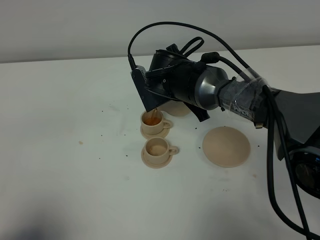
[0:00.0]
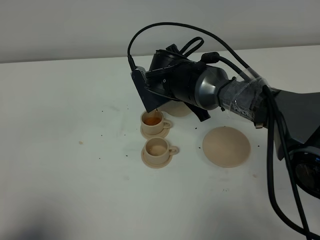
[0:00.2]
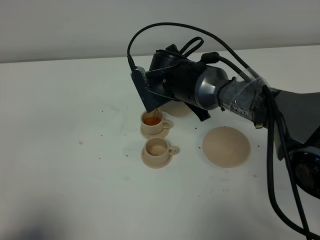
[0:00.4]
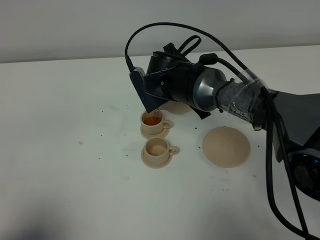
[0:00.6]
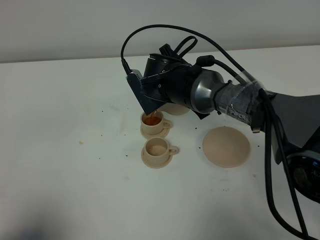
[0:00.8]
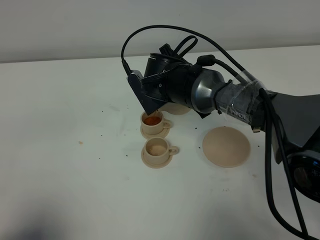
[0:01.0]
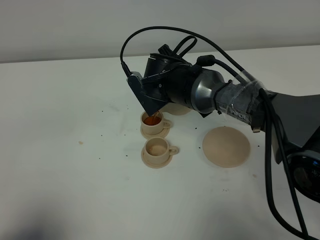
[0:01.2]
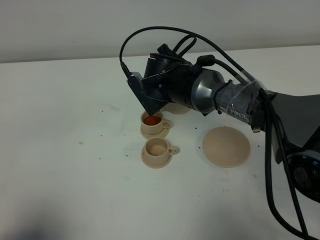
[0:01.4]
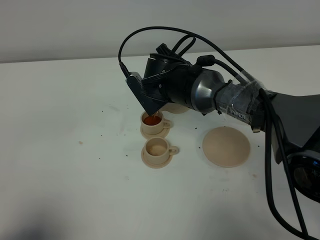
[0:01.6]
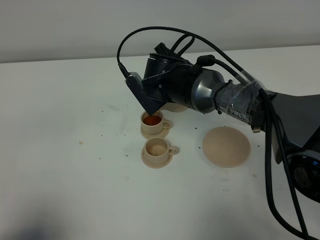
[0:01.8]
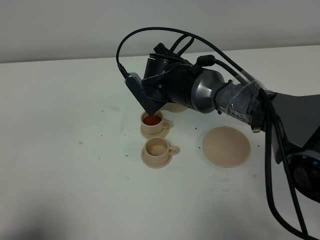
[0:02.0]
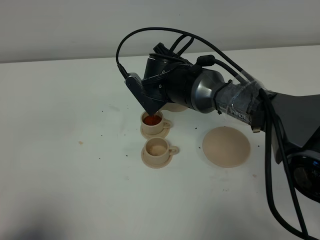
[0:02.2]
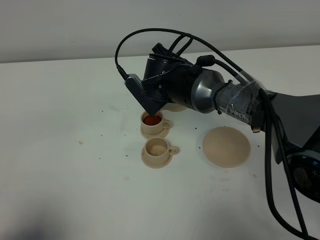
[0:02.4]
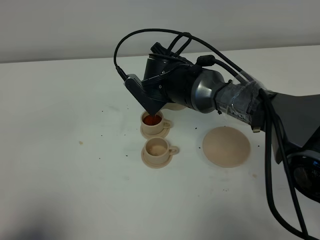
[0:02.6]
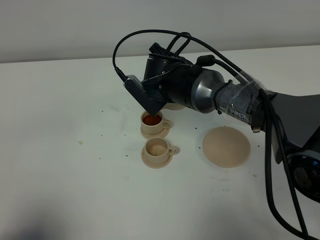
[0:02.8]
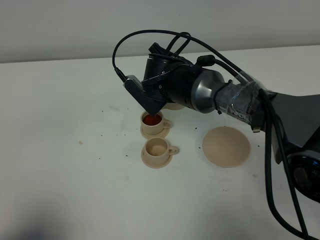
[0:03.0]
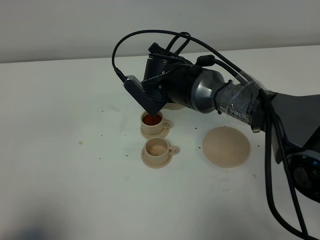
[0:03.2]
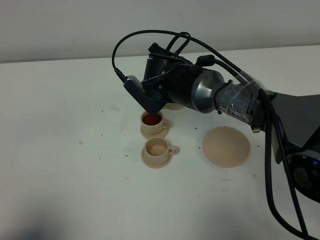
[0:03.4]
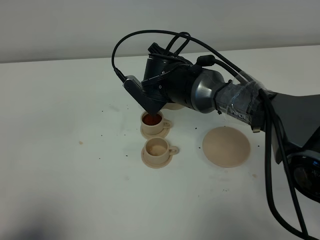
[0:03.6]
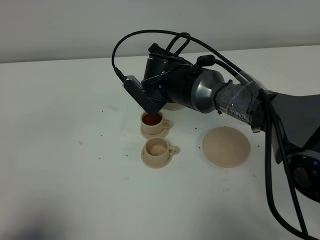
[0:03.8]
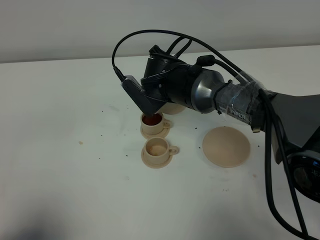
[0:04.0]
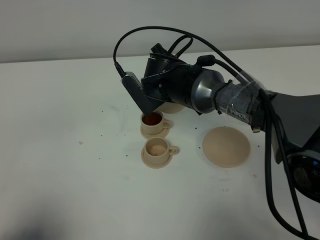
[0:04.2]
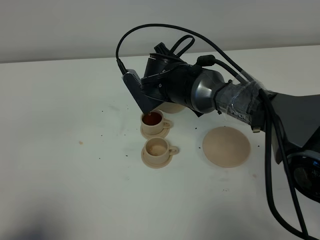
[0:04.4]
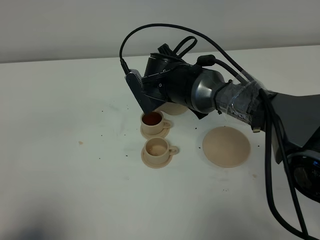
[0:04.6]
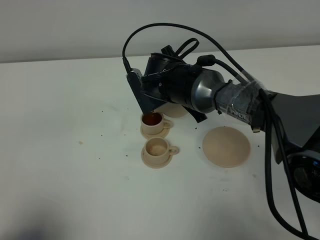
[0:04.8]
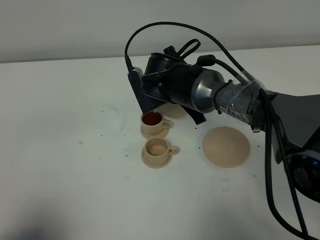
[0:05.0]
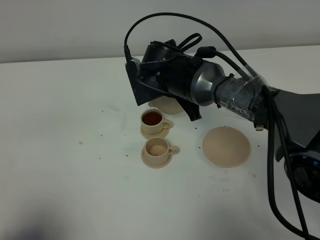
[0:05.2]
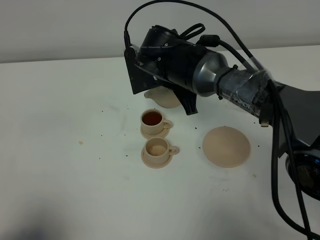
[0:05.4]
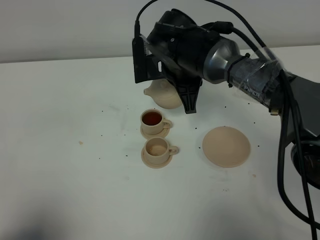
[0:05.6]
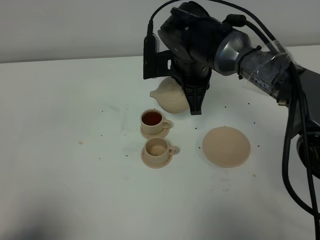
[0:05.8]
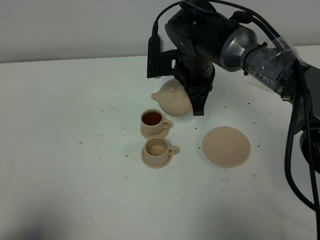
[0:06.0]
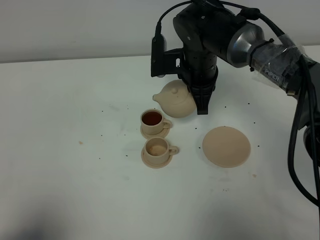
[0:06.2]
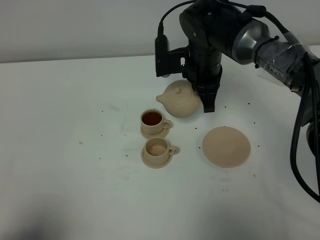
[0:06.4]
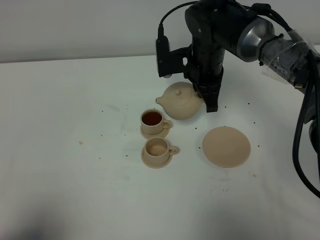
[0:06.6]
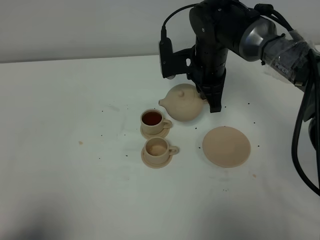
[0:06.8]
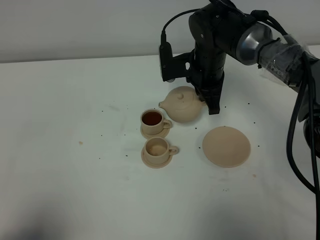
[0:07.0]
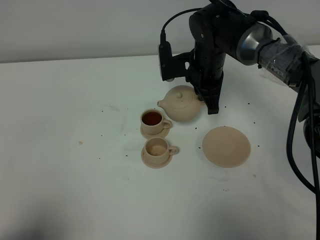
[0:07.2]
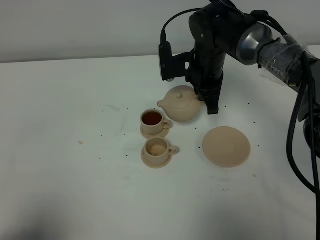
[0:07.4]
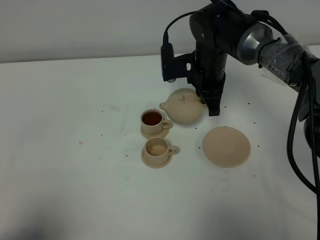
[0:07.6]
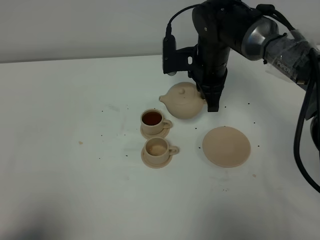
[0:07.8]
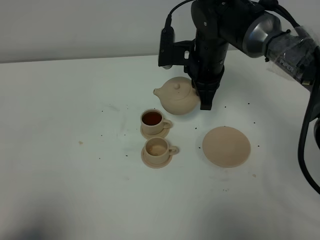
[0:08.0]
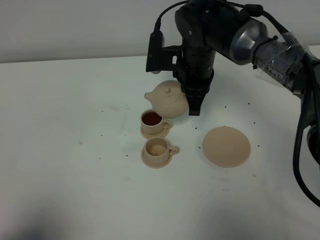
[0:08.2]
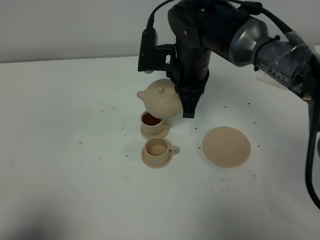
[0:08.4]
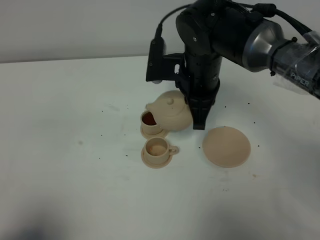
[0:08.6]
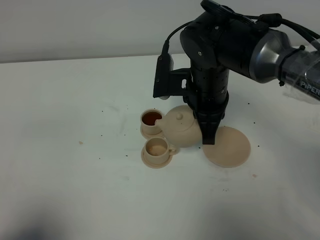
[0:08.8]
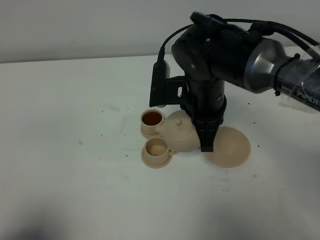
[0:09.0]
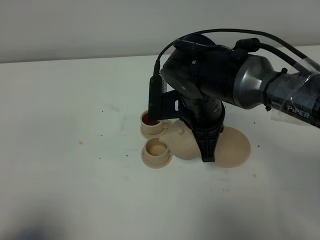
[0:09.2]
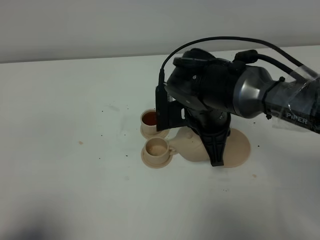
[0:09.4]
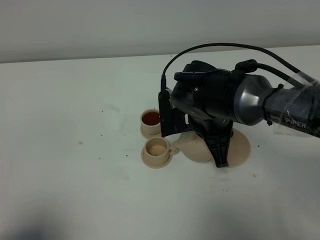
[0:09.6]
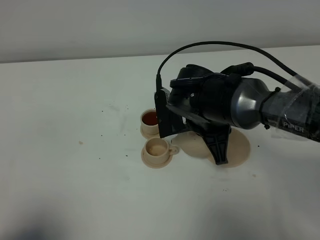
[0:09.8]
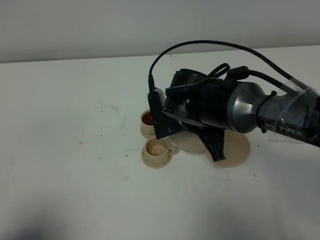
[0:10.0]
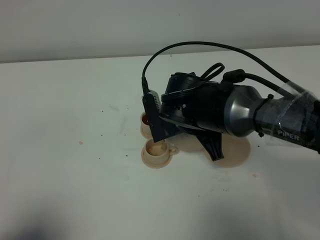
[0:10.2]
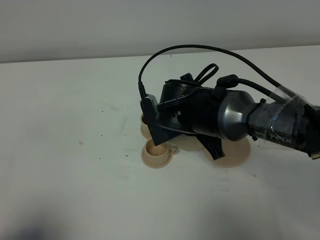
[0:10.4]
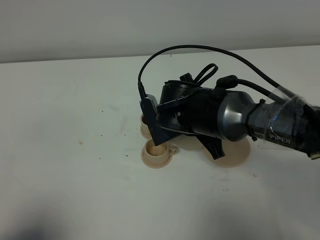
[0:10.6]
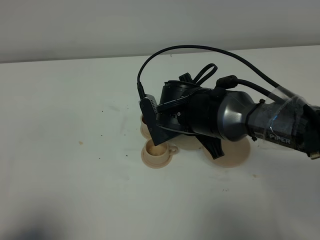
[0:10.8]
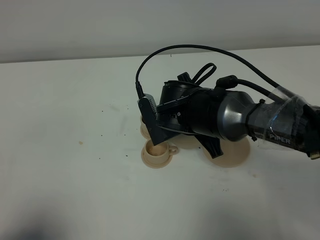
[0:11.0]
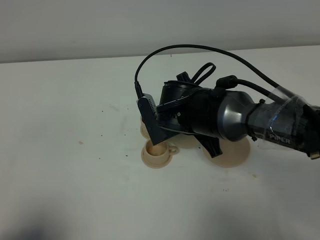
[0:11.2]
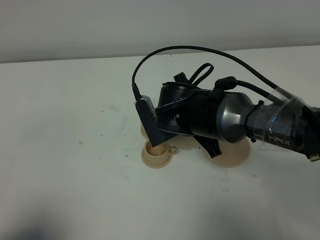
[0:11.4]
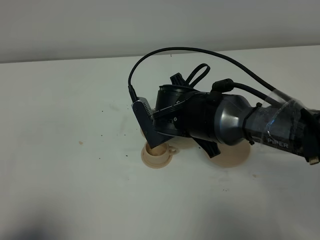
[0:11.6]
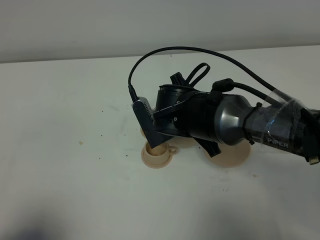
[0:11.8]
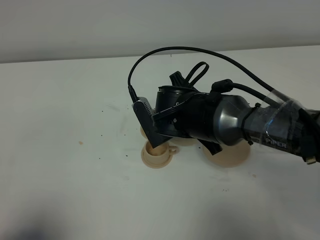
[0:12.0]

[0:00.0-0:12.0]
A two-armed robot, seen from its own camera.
Task of the whole recording: grasp the brown teapot and pour the tea into the two brown teacups one by one, put the brown teapot back in its original place.
Step, 0:00.0 to 0:05.4: Pour tea into the teacup with the right gripper.
0:00.0 to 0:01.6: There are only small adjustments of the grippers.
0:01.6 to 0:04.4: The grippers make only small movements.
0:04.4 to 0:06.0: The right gripper ends up roughly 5 cm from where it was.
0:06.0 to 0:07.6: The grippers make only small movements.
0:07.6 to 0:09.0: The right gripper is displaced backward by about 10 cm.
0:10.4 to 0:12.0: The grippers stay close to where they were, moving slightly.

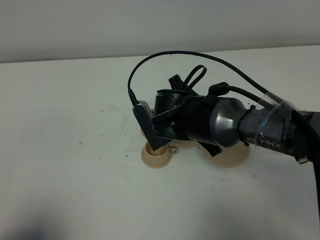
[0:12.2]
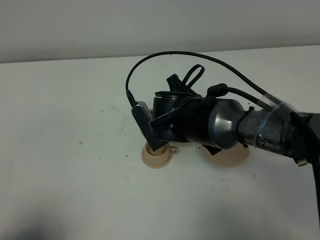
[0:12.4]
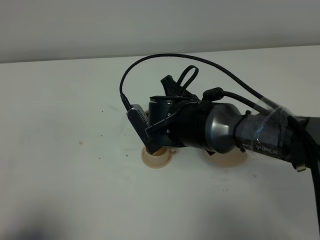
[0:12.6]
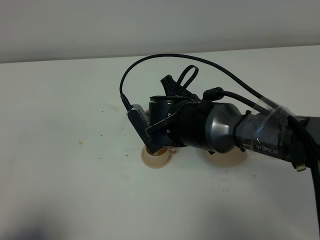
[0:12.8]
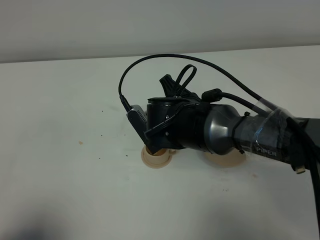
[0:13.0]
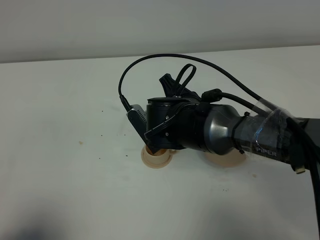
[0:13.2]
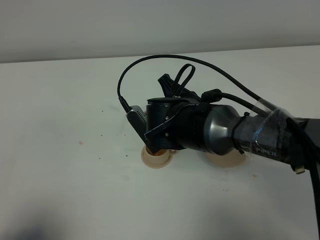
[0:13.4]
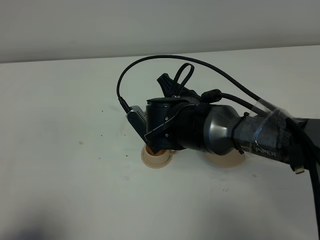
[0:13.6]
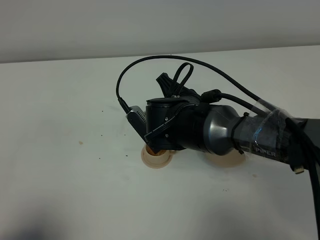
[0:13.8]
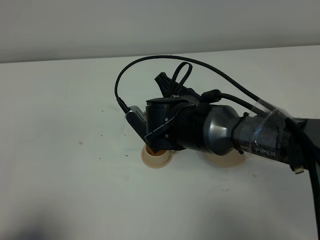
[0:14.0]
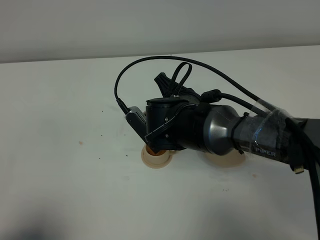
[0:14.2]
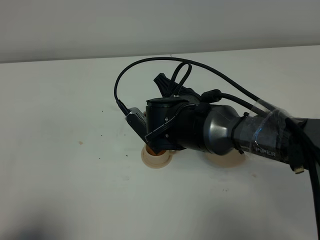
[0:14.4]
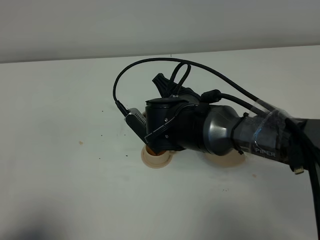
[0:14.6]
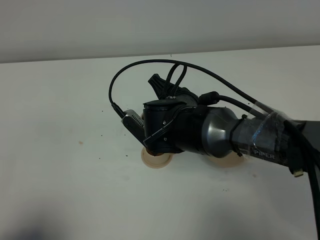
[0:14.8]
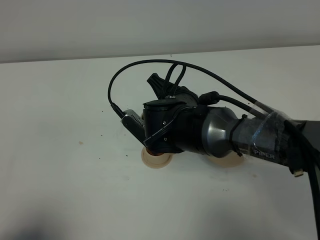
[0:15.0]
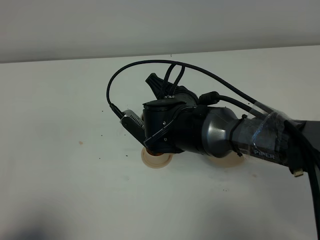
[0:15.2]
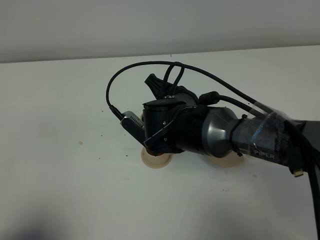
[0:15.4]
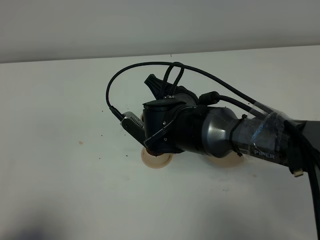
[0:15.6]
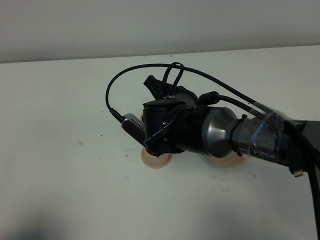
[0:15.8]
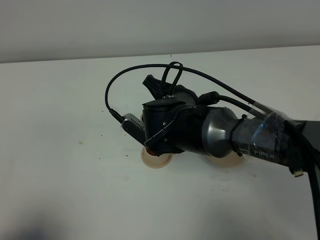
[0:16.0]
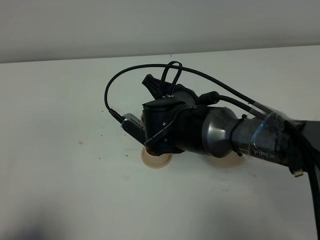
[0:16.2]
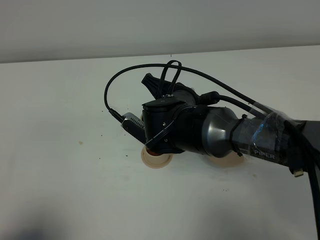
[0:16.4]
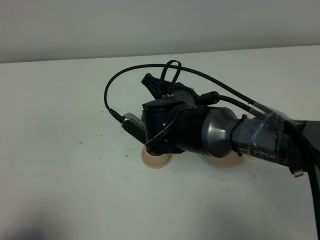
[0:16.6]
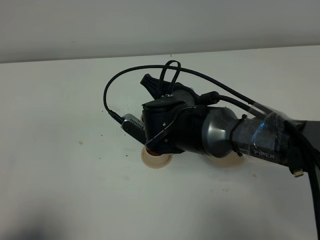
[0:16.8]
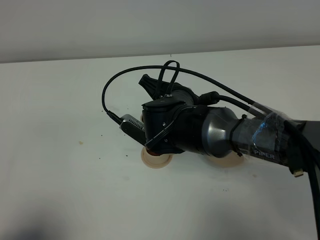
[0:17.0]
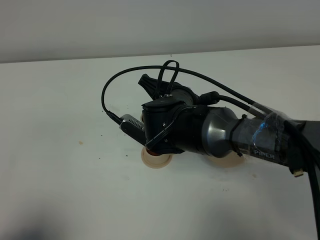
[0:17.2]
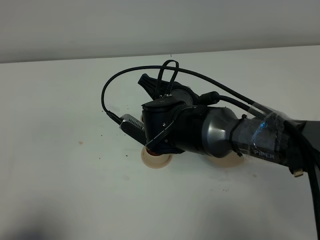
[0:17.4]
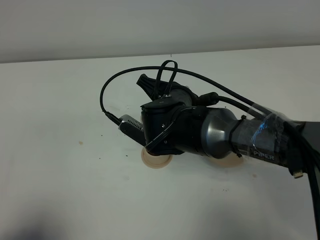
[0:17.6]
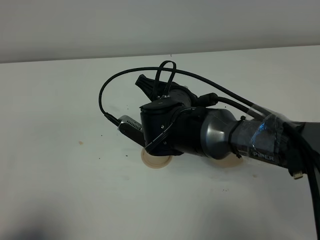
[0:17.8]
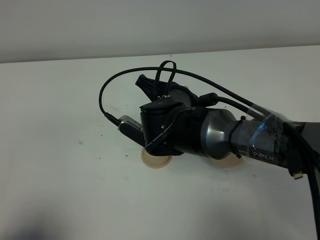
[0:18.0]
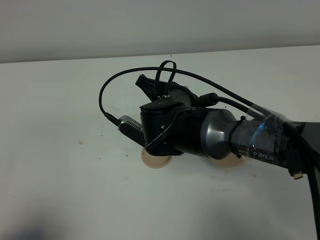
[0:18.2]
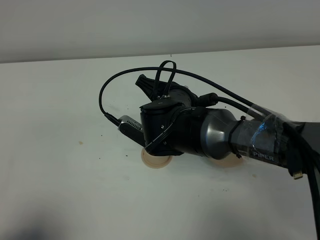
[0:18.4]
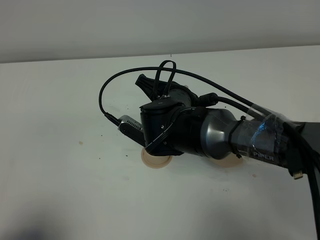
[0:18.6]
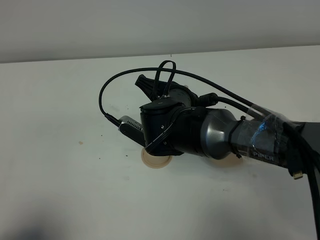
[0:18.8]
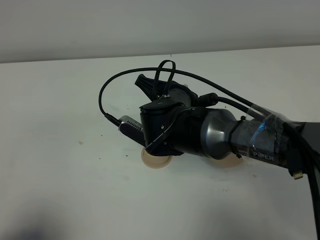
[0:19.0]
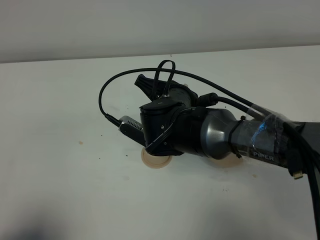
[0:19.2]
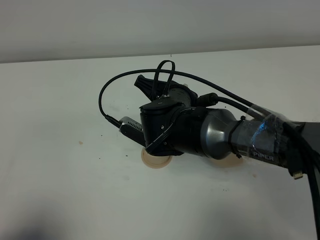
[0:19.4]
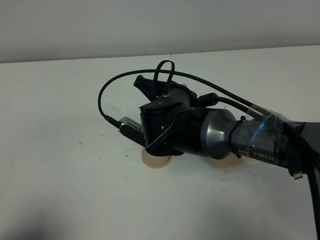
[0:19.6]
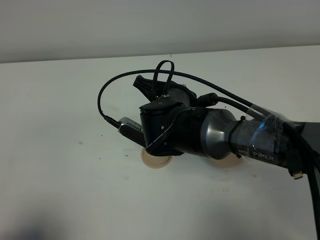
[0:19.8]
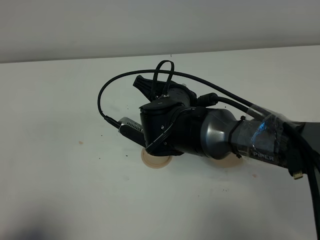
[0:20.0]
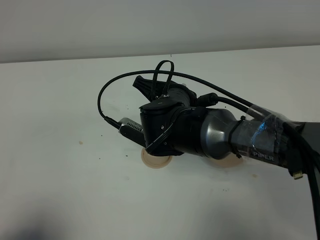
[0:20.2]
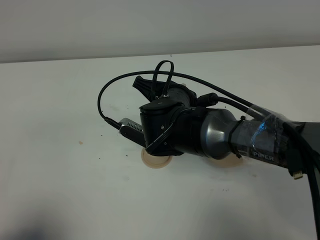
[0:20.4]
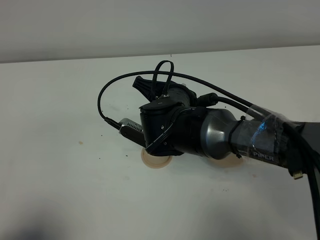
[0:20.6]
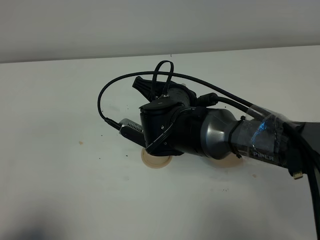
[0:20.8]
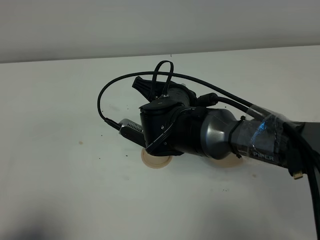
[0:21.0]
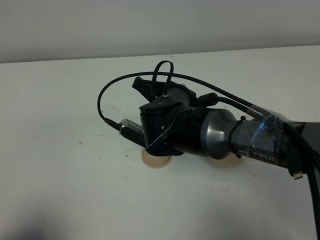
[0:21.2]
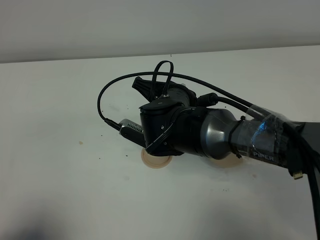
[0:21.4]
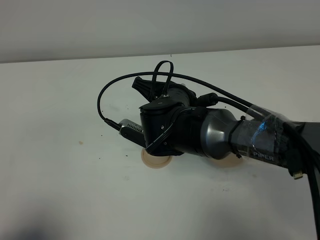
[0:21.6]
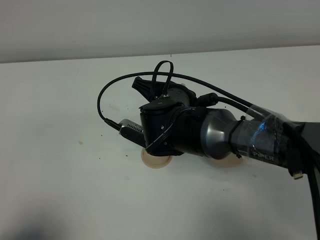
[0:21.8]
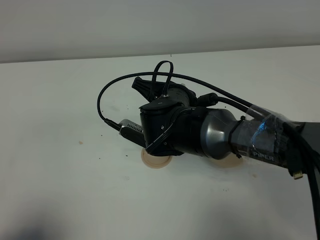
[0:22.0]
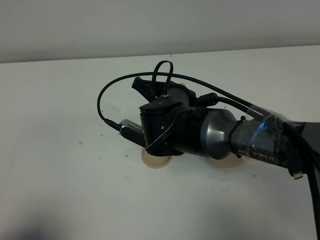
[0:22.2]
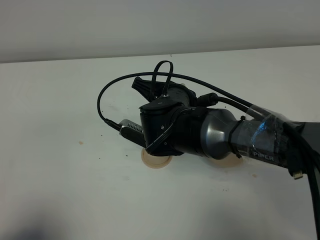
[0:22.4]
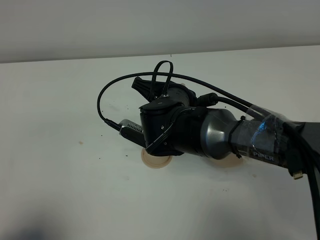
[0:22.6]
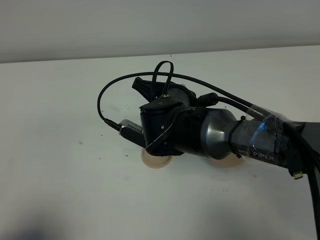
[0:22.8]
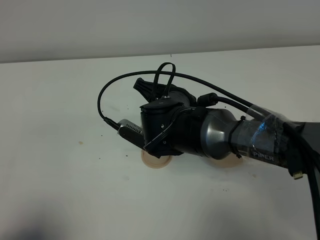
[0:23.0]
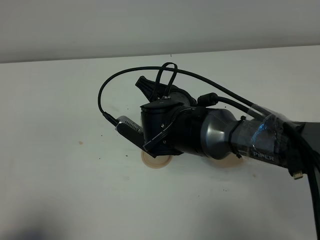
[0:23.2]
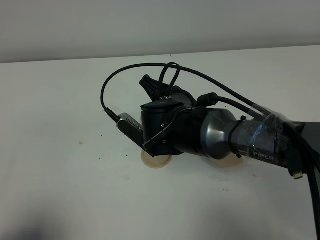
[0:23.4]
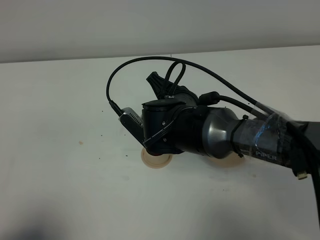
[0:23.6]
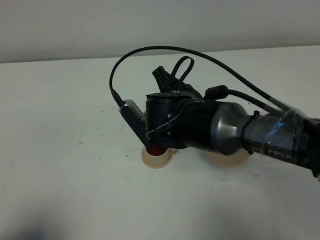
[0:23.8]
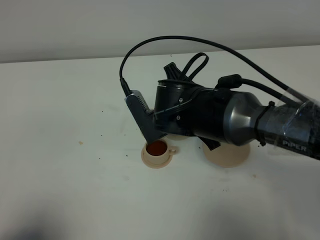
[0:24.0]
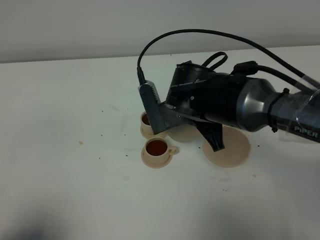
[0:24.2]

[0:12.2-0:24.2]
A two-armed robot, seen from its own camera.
Task of the whole recording: grasp the brown teapot and pour the tea into the two brown teacups one by one, put the brown teapot back in its original place.
Step, 0:12.2 to 0:24.2: Pour tea into the teacup with the right gripper.
0:12.2 to 0:13.8: The grippers make only small movements.
0:13.8 to 0:16.6: The grippers move only a little.
0:16.6 to 0:18.2: Neither gripper changes place.
0:18.2 to 0:19.8: Neither gripper changes place.
0:19.8 to 0:22.6: Both grippers stay put.
0:22.6 to 0:24.2: The right gripper changes place by some 5 cm.
